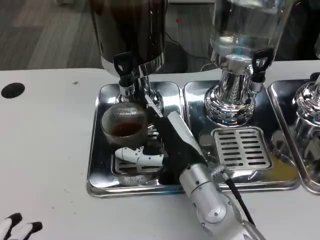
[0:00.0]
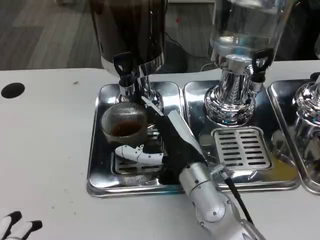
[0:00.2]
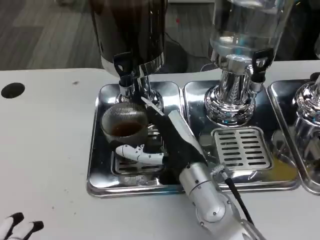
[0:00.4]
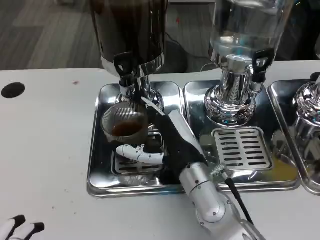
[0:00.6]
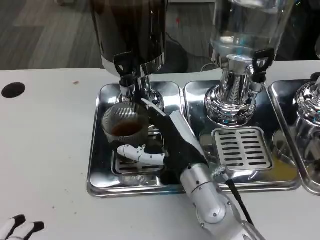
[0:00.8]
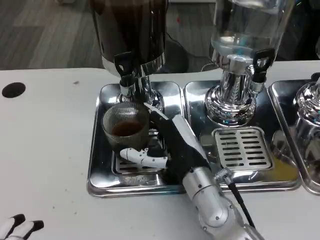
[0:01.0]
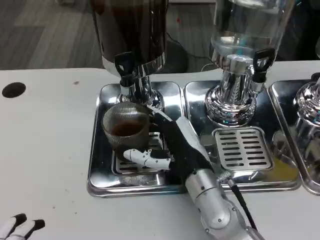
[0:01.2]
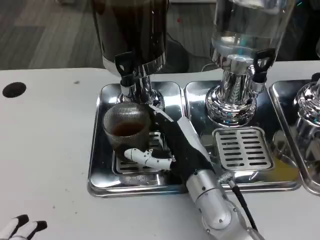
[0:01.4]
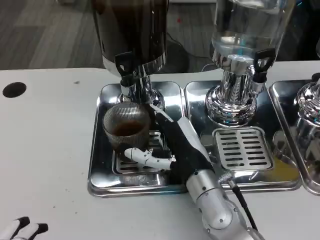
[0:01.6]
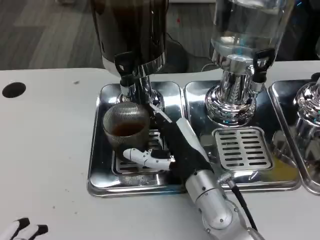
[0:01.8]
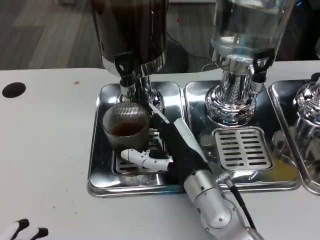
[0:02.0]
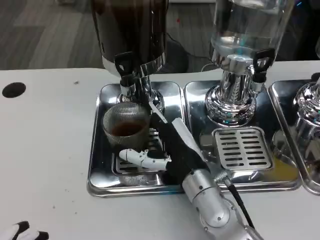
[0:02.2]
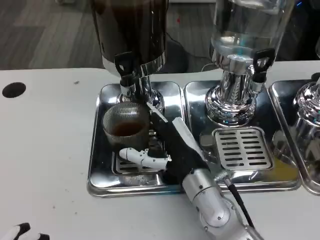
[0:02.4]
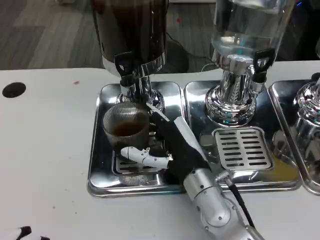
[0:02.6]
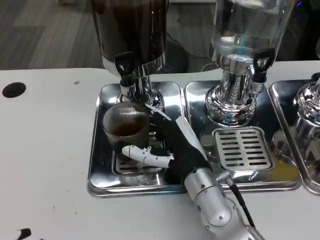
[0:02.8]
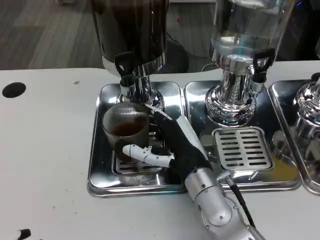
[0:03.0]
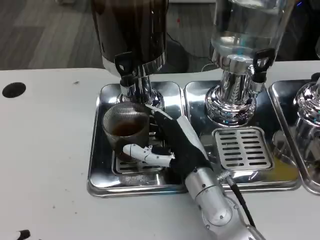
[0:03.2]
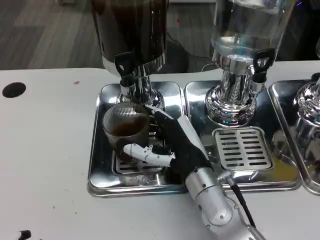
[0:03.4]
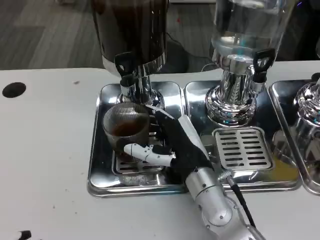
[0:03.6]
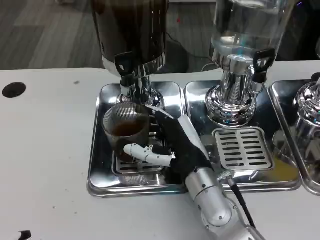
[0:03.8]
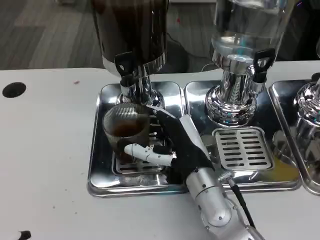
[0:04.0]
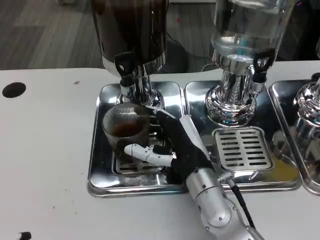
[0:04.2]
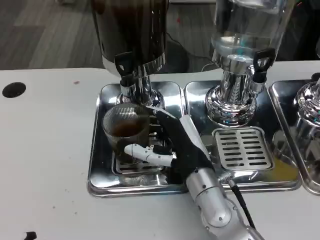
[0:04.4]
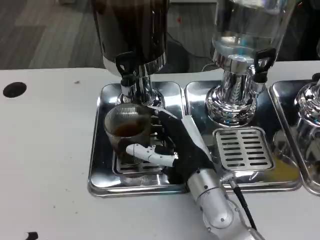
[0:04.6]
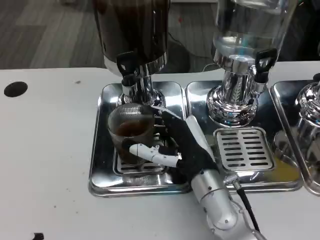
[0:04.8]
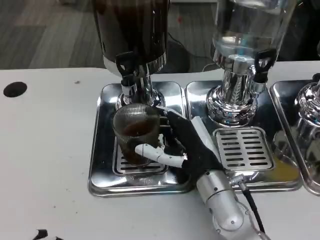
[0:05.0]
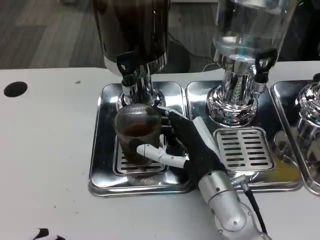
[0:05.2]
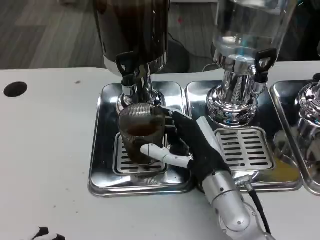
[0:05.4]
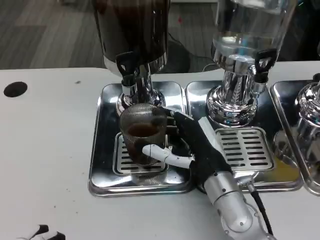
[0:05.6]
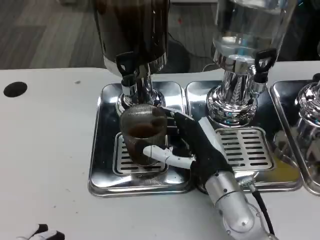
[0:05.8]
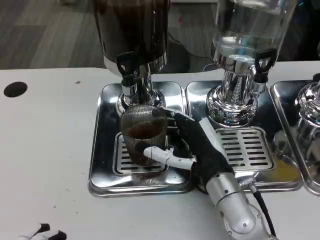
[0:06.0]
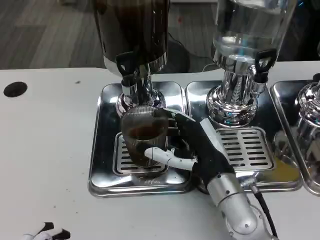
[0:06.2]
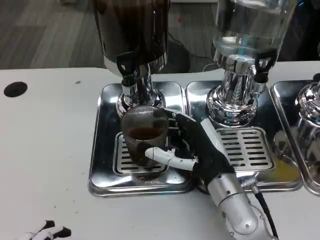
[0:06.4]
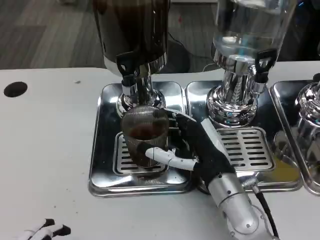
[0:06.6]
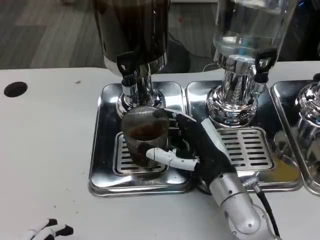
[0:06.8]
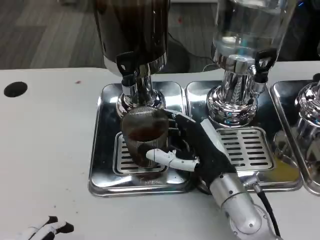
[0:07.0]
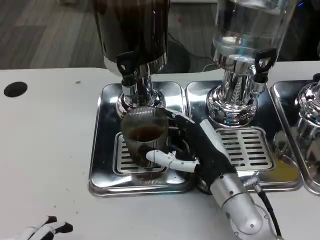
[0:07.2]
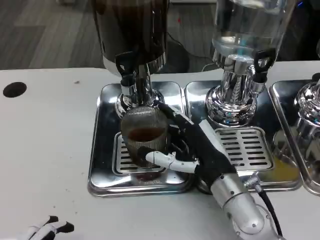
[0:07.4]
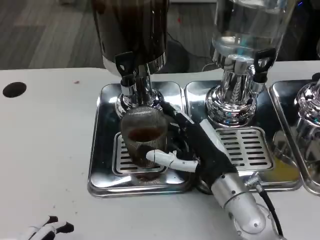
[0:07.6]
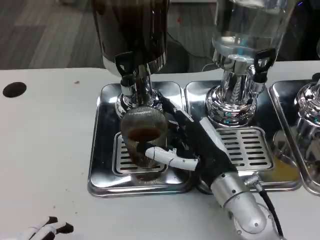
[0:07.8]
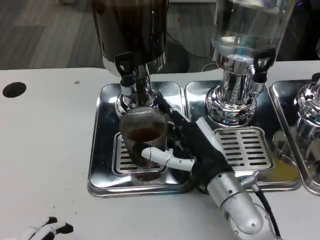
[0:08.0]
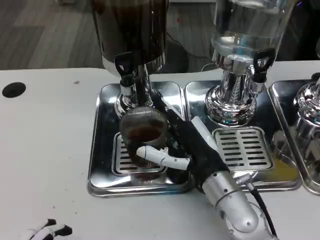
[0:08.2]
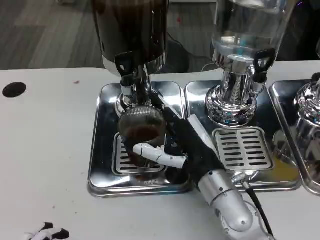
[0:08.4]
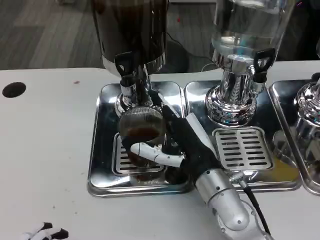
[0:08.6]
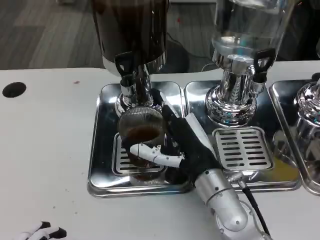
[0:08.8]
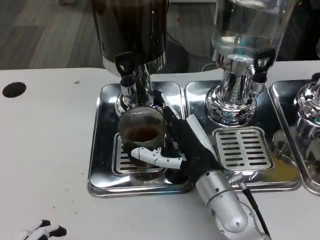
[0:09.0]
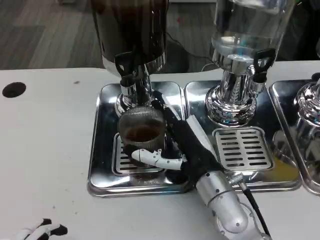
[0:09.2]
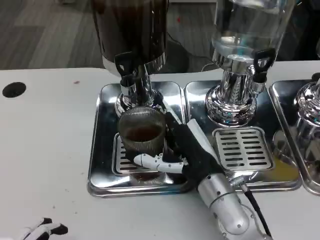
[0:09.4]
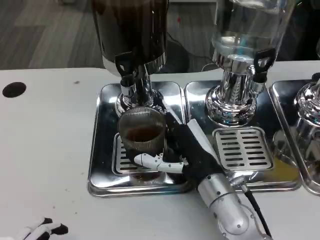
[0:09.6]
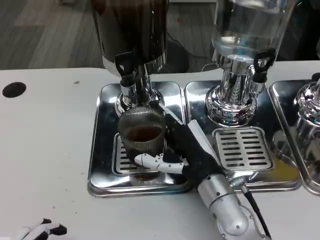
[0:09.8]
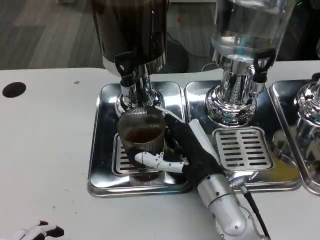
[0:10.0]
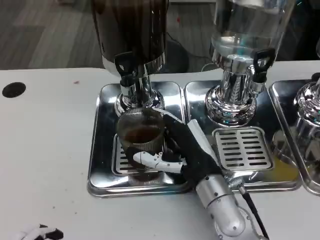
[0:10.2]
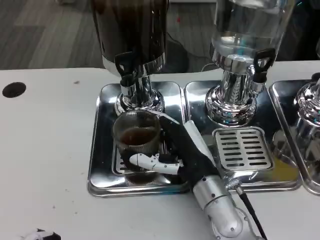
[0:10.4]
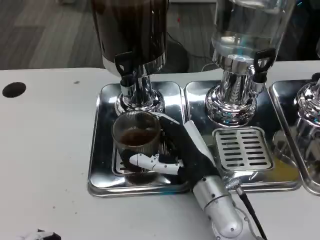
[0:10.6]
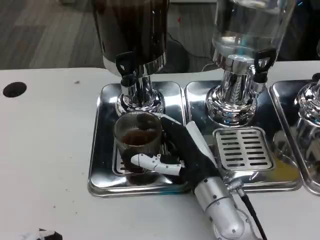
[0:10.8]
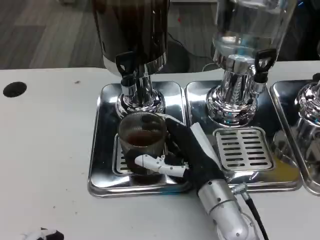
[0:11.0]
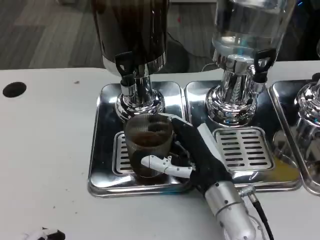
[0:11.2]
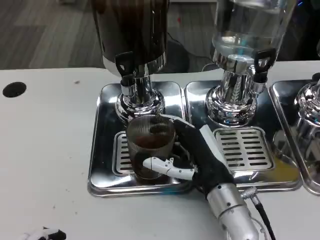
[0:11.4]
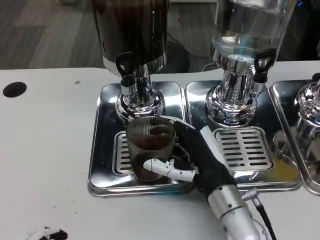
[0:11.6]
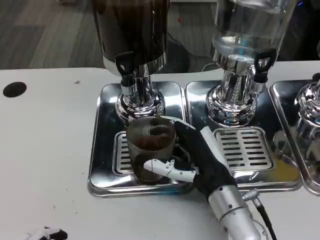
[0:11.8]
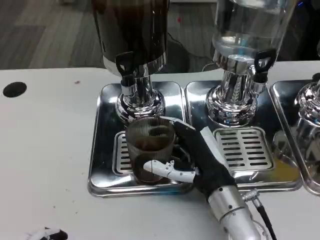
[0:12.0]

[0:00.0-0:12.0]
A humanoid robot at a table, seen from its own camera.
Task of the whole recording: Grasp the cup under the faucet to collect the drink, then remove the cup.
0:00.0 to 0:01.6: The two hands keep their place.
0:01.6 to 0:04.4: Both hands stay put.
0:04.4 to 0:09.0: There are only small adjustments of the hands.
0:09.0 to 0:10.4: Neither hand changes place.
0:10.4 to 0:12.0: The hands move only a little.

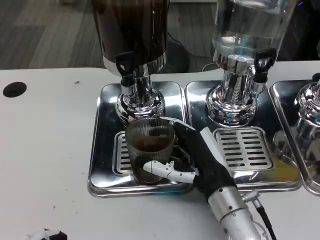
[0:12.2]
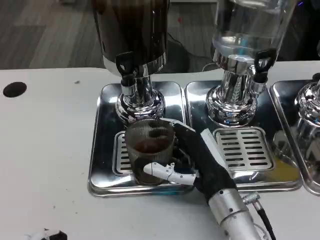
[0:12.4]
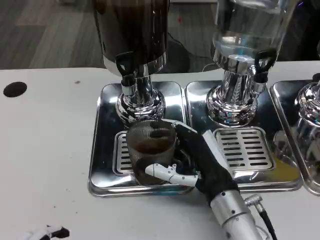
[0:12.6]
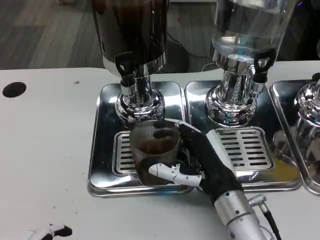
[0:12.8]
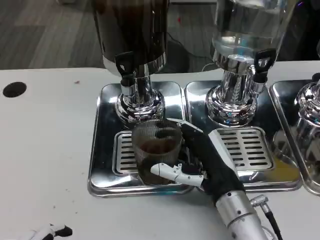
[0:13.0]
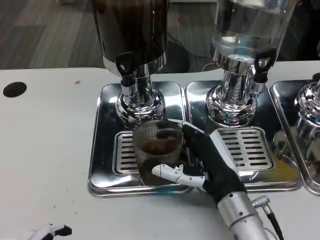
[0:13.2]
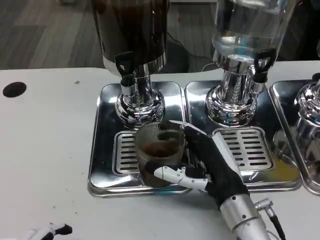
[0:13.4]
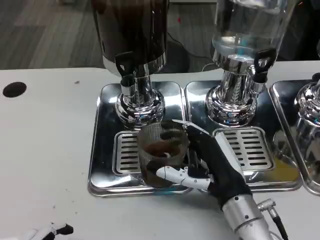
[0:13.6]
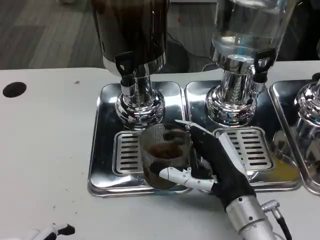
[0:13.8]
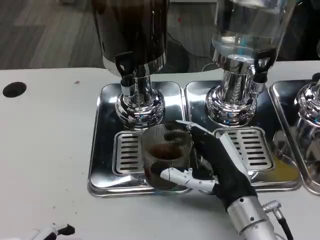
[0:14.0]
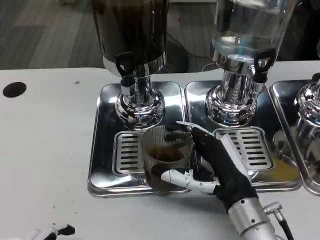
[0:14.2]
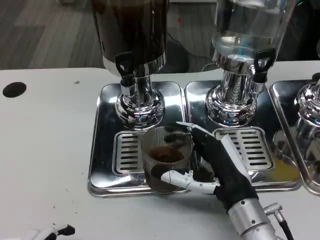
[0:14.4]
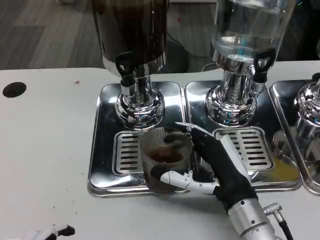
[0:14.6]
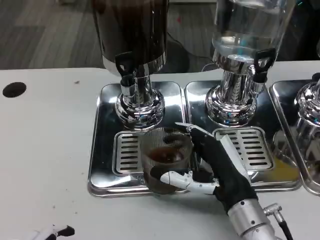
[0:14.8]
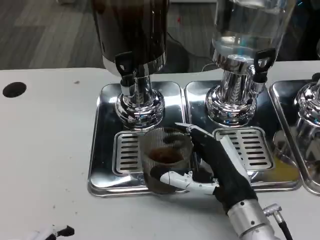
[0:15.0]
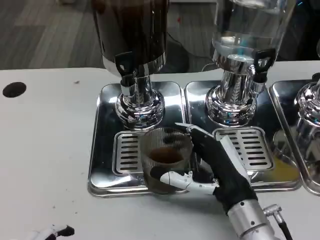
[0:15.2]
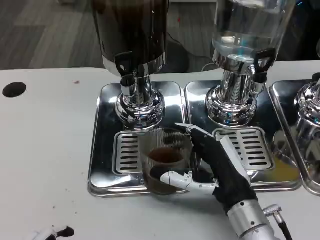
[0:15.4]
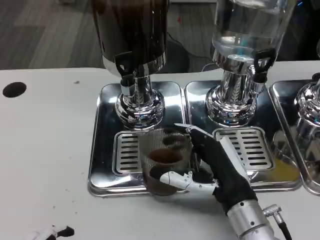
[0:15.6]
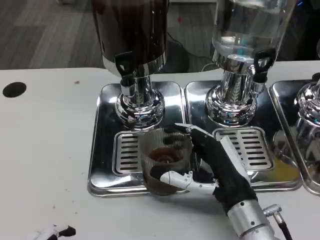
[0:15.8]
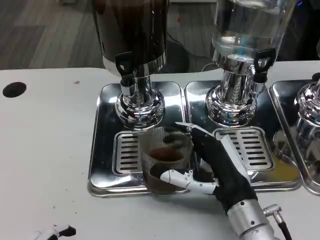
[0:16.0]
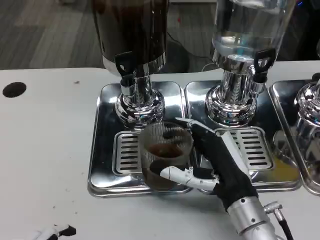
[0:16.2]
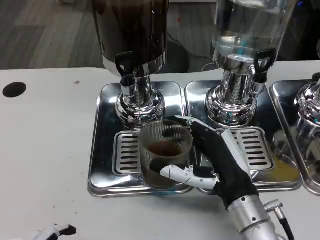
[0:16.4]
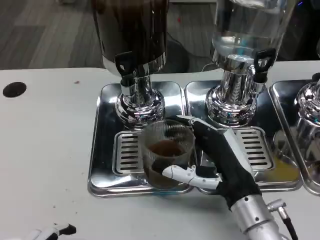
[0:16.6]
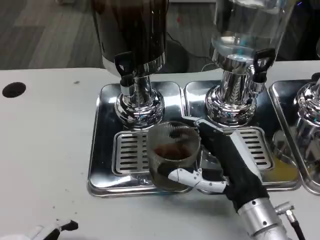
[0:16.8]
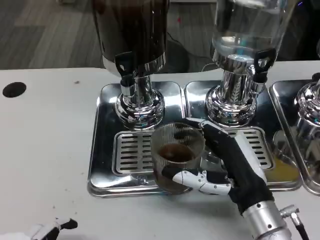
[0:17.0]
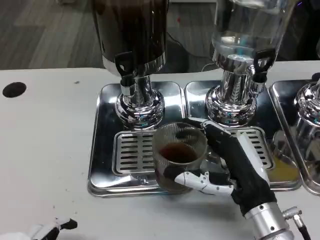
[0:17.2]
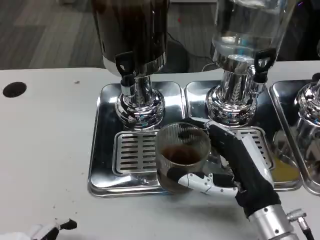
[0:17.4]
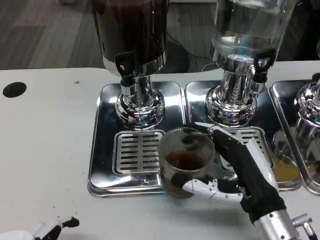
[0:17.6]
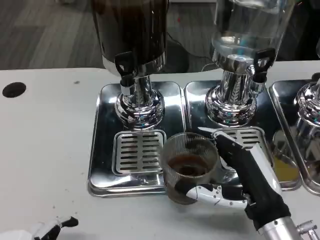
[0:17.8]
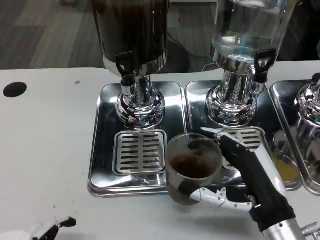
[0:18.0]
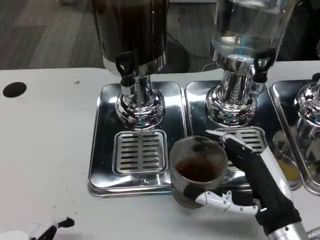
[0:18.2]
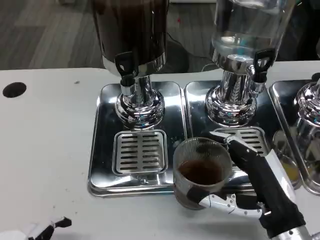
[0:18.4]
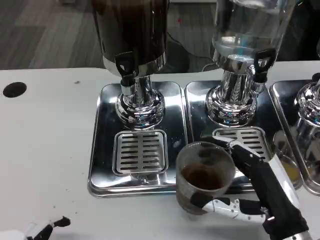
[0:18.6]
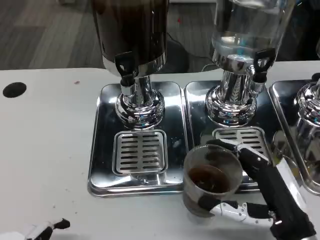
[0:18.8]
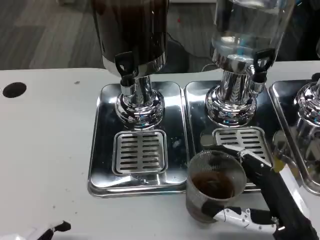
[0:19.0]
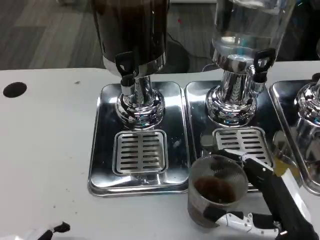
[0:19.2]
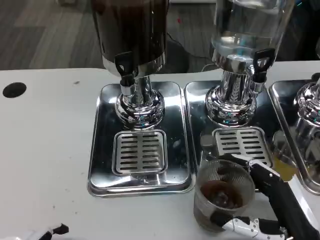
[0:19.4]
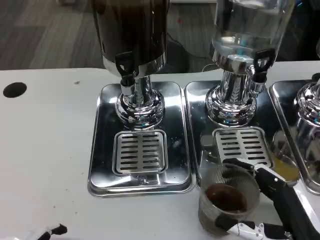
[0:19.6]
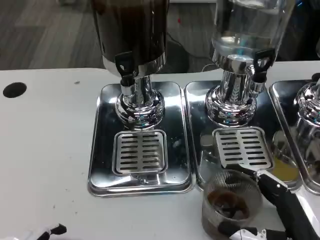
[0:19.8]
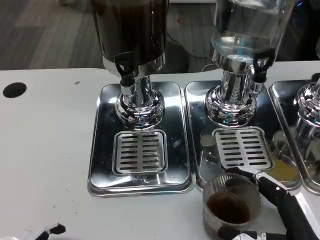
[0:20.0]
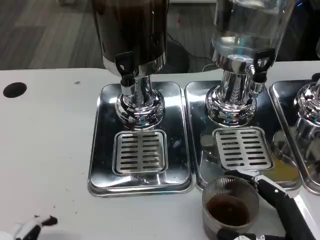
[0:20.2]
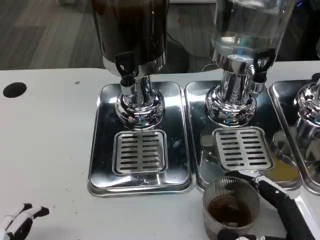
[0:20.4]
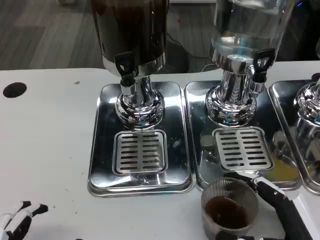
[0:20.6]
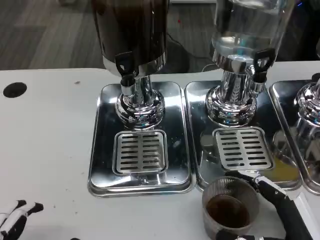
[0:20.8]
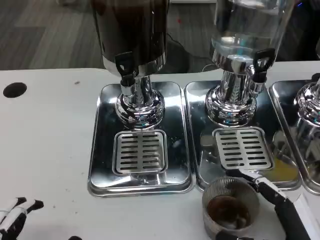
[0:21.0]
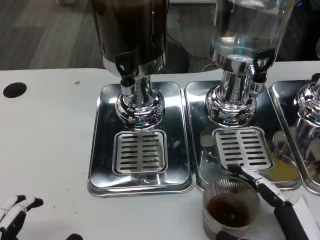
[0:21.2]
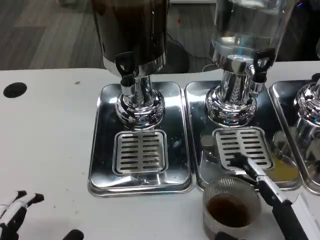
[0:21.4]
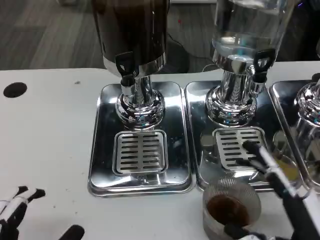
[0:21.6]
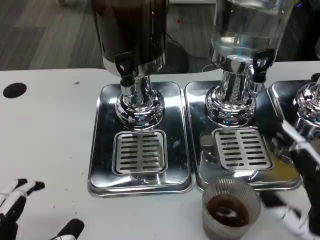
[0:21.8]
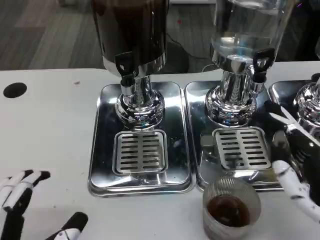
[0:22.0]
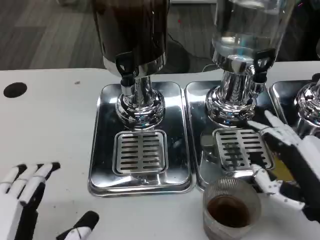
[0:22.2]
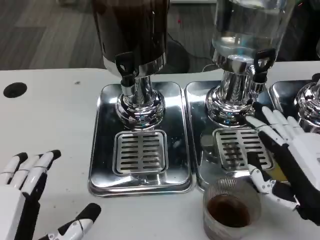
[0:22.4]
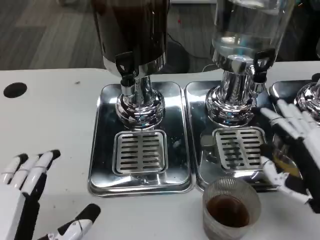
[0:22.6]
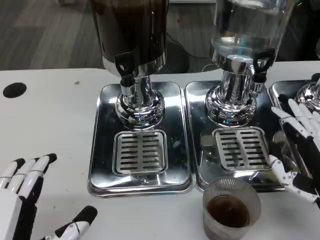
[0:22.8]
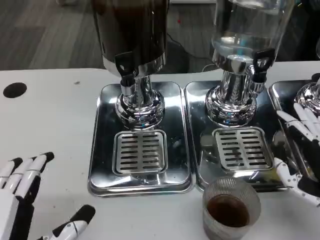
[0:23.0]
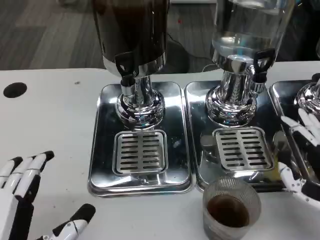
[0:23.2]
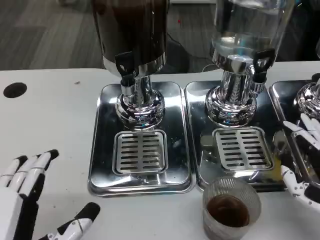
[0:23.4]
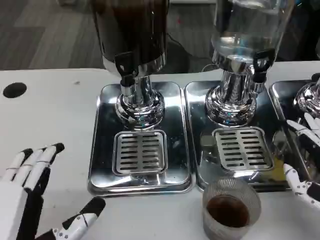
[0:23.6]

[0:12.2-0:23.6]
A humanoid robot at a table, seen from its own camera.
Task of the whole recording: Grasp the cup under the faucet to collect the drink, then remove the cup.
0:12.2 to 0:13.6: The hands make only small movements.
0:13.6 to 0:16.4: The two hands keep their place.
0:16.4 to 0:17.8: The right hand shifts by some 5 cm.
0:17.8 to 0:19.4: The right hand moves roughly 5 cm.
0:19.4 to 0:20.8: There are only small adjustments of the hands.
0:20.8 to 0:22.2: The right hand travels upward by some 10 cm.
0:22.2 to 0:23.6: The hands move only a little.
